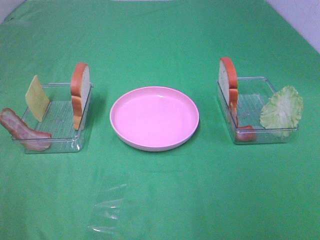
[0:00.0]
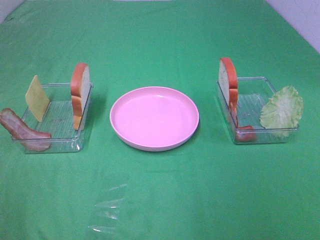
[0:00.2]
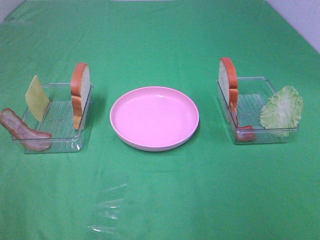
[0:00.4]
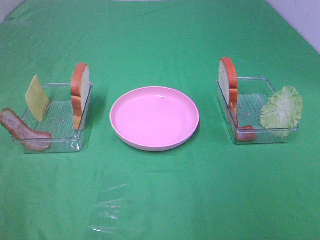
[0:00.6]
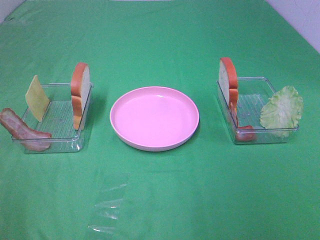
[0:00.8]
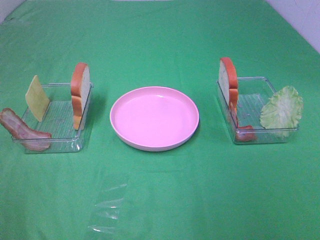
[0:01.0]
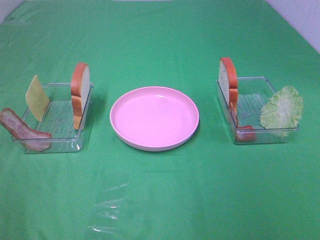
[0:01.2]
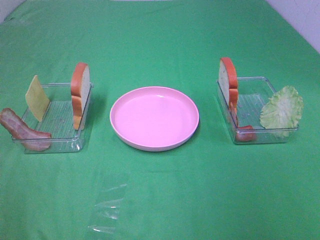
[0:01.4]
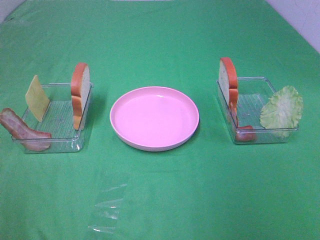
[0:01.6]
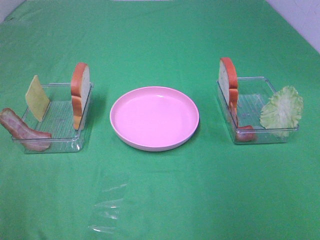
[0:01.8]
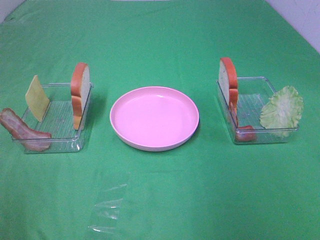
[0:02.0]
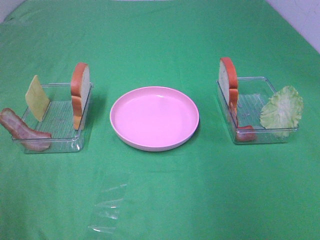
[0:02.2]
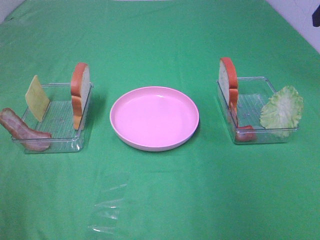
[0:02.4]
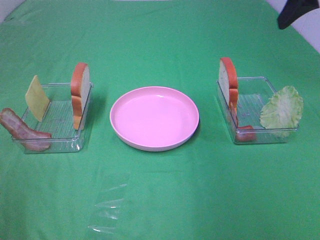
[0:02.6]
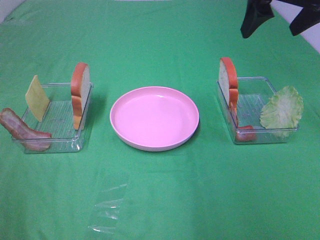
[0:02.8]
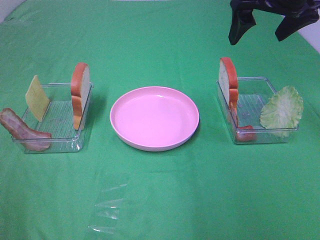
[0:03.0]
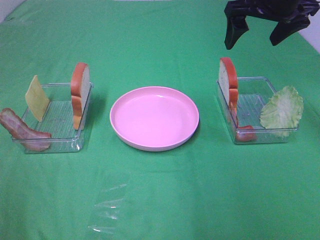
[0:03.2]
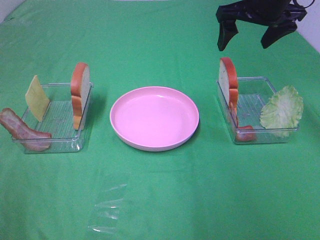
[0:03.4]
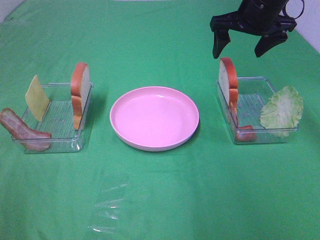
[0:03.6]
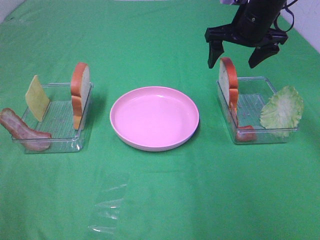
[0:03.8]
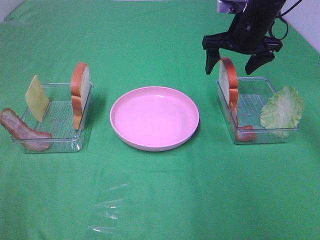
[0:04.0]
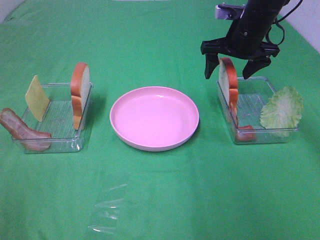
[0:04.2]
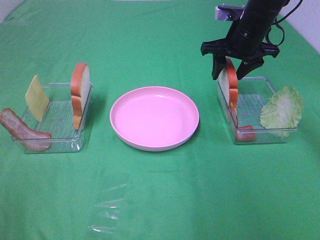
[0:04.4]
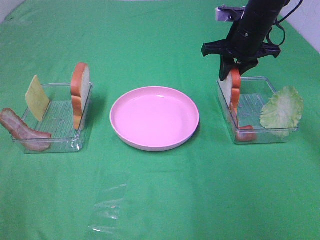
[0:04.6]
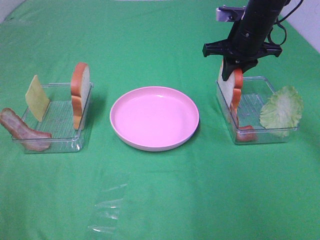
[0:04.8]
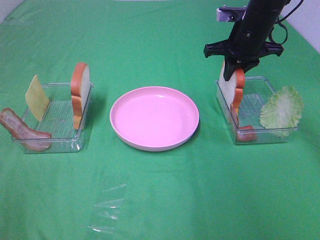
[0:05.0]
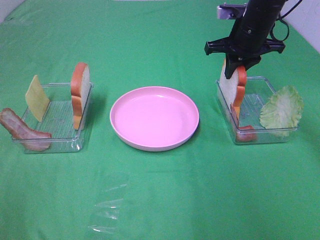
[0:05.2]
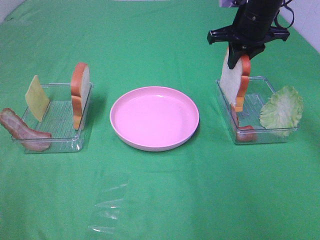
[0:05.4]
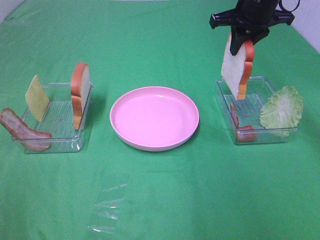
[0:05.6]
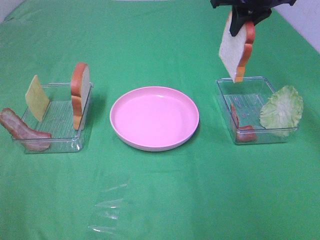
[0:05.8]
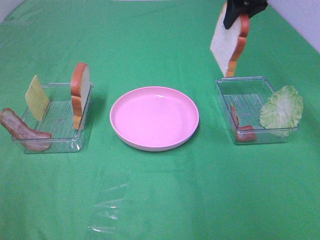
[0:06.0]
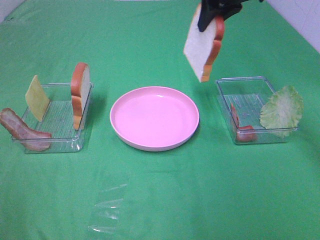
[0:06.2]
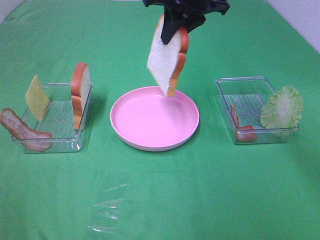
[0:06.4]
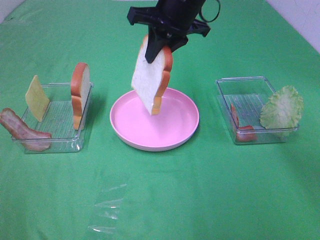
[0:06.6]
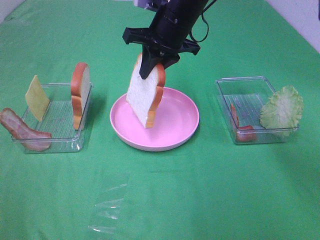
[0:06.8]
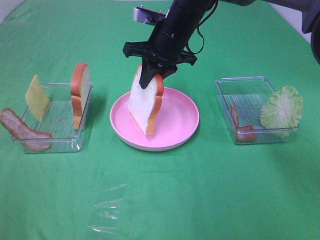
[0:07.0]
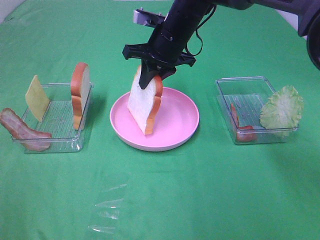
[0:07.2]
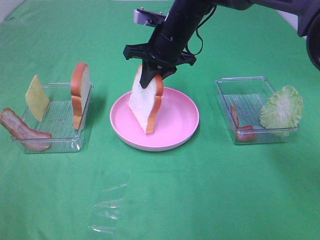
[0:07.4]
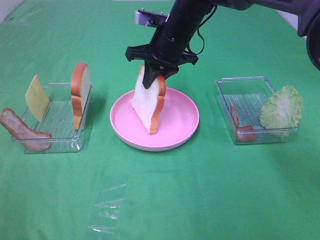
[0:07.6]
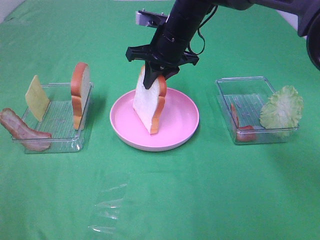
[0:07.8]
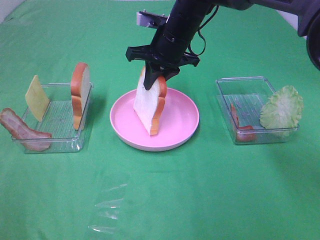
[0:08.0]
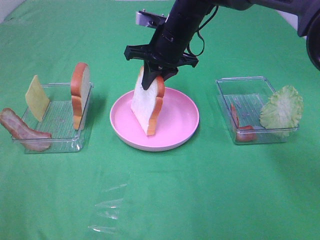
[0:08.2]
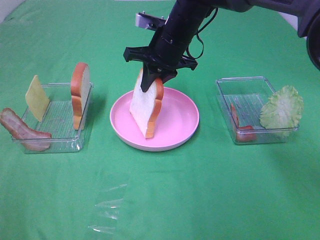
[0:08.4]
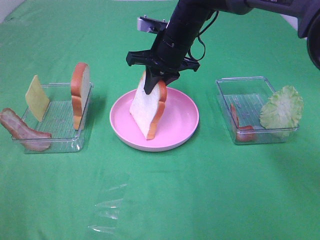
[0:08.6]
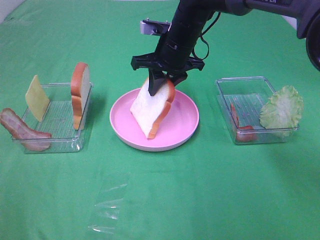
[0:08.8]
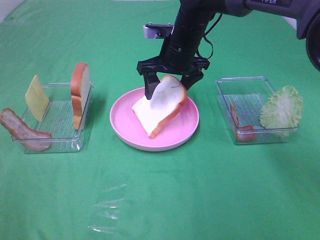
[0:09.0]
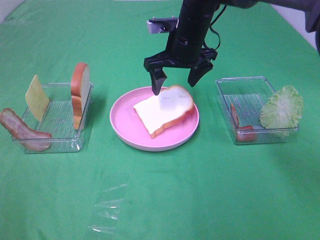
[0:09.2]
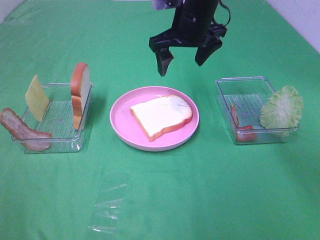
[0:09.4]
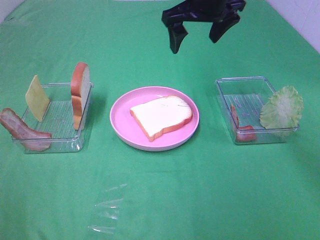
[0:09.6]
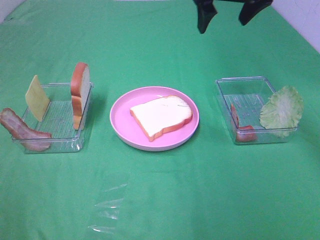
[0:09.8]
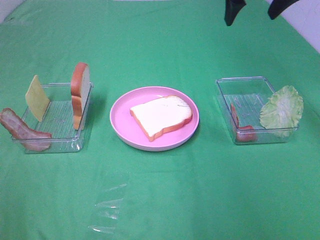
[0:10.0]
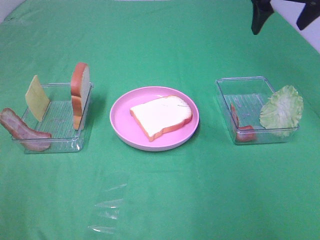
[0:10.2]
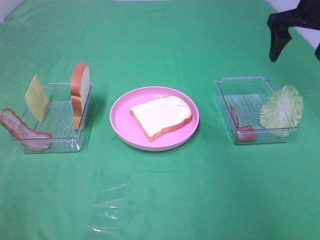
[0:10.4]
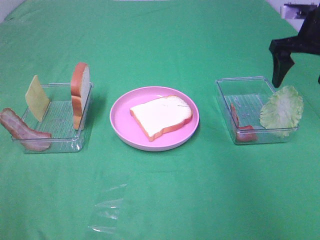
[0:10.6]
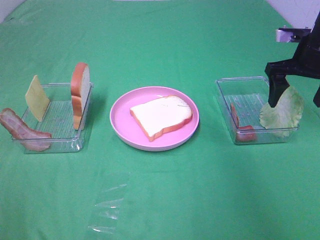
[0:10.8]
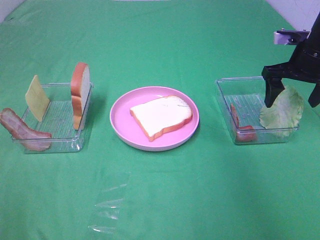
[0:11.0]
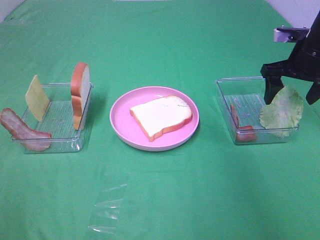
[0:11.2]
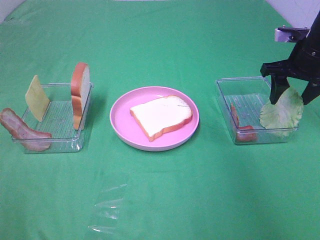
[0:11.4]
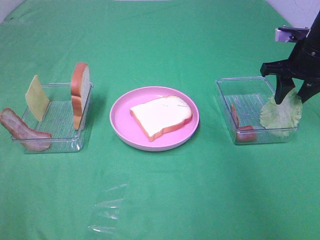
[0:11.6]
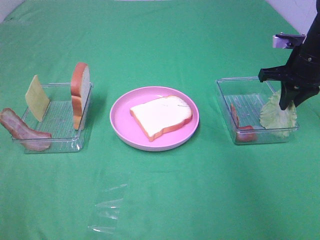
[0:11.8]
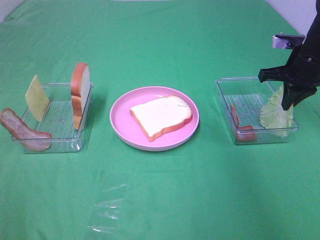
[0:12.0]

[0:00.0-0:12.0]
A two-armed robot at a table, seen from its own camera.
Task of the whole recording: Make sandwiches.
Step, 0.0 to 5.0 s: Right hand:grab the bread slice.
Step, 5.2 to 9.2 s: Right hand:place the bread slice on the plate.
Step, 9.4 to 11.8 s: Right hand:grab the lettuce slice.
1.6 to 3.0 s: The right gripper goes approximately 30 cm forward.
3.0 to 4.4 s: The right gripper travels downward and forward by roughly 15 cm, and closes.
4.4 to 6.0 s: The right gripper travels upward by roughly 10 cm.
6.0 to 7.6 s: The right gripper goes roughly 15 cm to the left and downward.
7.6 to 9.0 s: The right gripper opens.
9.0 to 10.4 s: The right gripper travels to the right and upward by about 25 cm.
10.4 to 12.0 s: The right gripper travels downward by some 10 cm, and closes up.

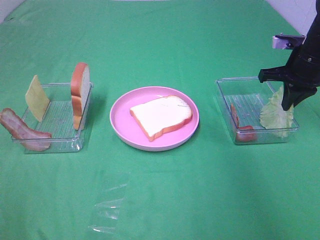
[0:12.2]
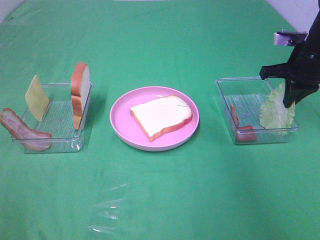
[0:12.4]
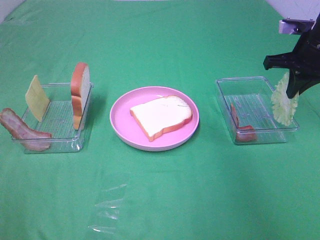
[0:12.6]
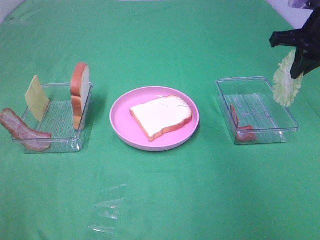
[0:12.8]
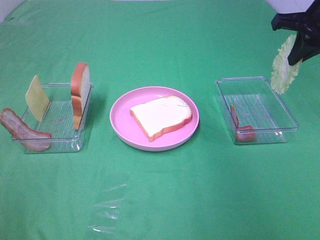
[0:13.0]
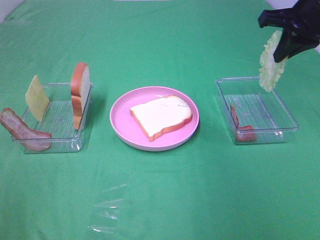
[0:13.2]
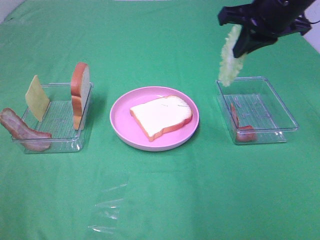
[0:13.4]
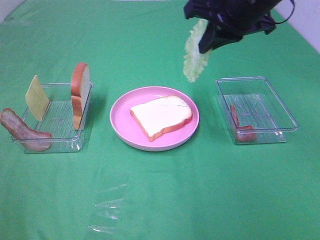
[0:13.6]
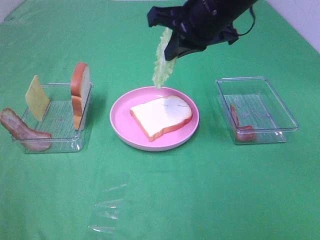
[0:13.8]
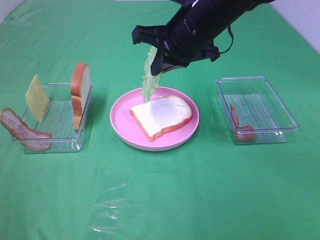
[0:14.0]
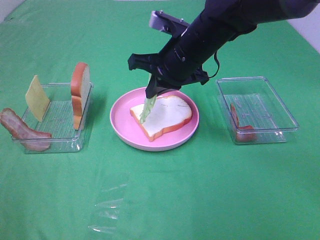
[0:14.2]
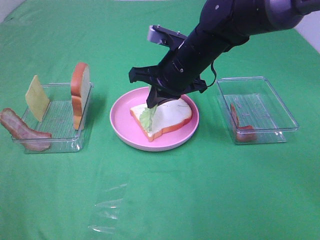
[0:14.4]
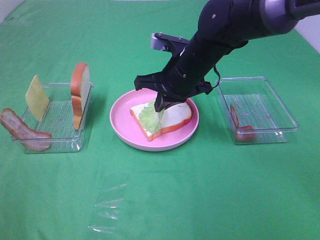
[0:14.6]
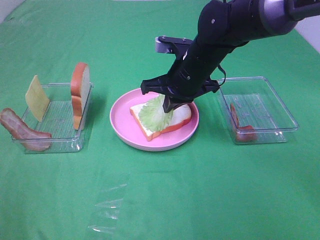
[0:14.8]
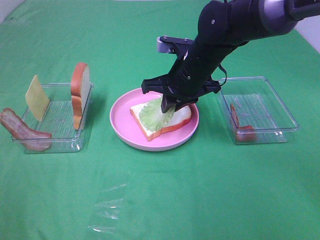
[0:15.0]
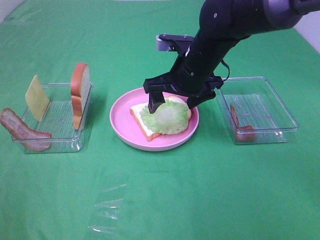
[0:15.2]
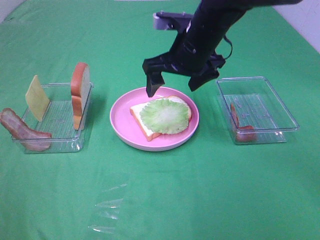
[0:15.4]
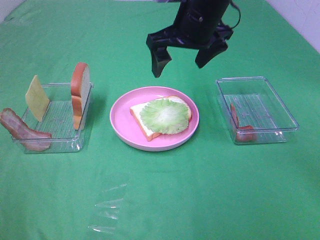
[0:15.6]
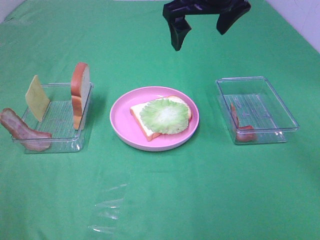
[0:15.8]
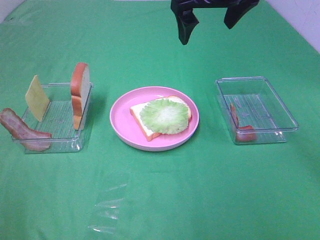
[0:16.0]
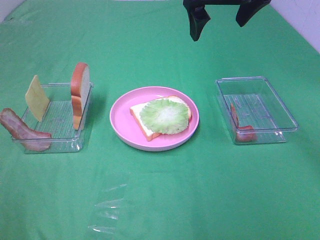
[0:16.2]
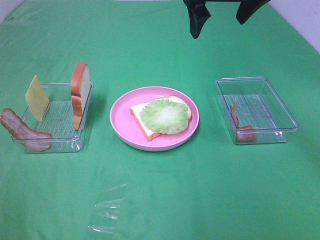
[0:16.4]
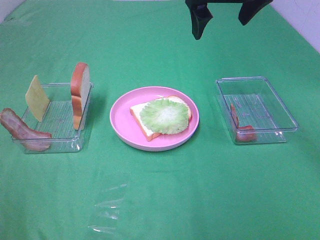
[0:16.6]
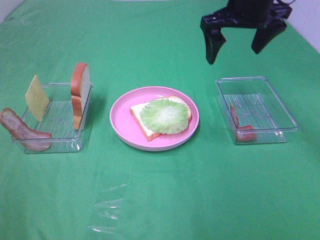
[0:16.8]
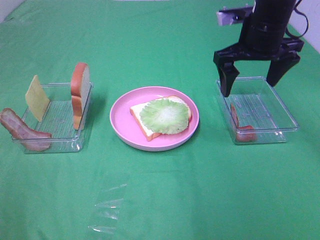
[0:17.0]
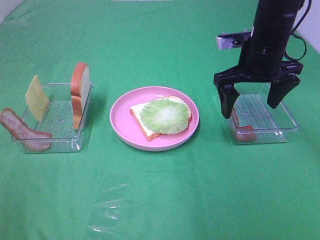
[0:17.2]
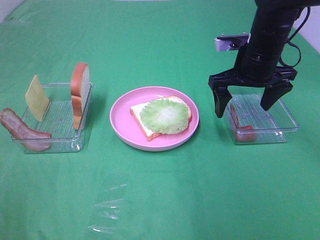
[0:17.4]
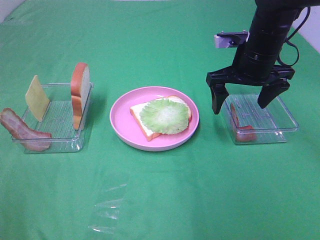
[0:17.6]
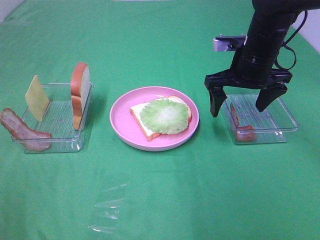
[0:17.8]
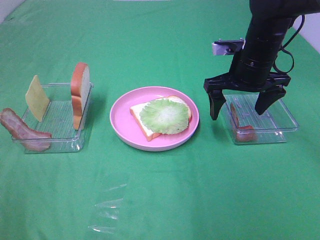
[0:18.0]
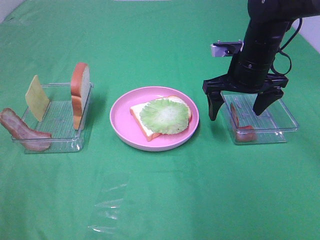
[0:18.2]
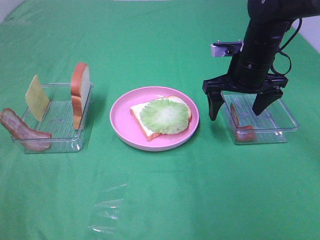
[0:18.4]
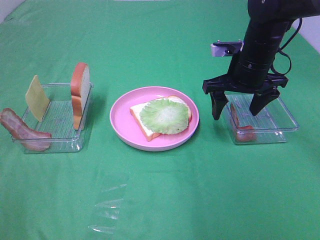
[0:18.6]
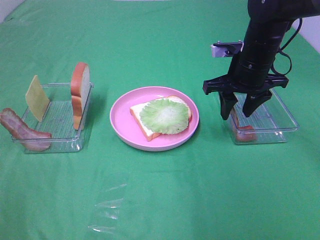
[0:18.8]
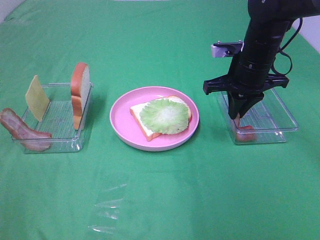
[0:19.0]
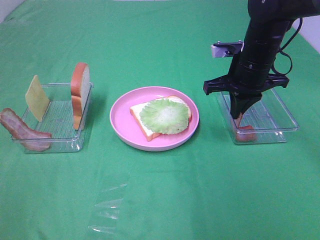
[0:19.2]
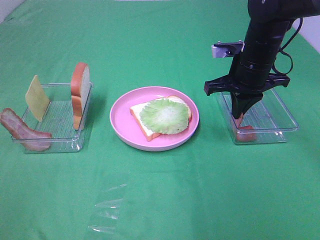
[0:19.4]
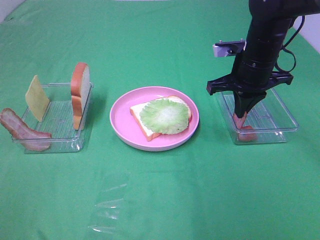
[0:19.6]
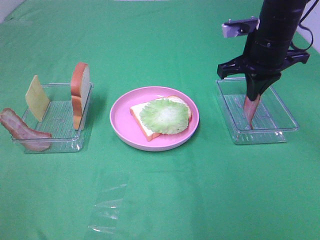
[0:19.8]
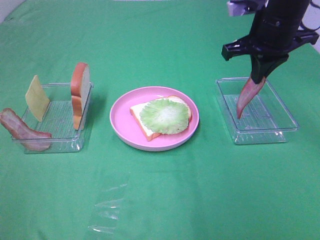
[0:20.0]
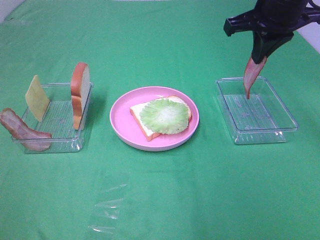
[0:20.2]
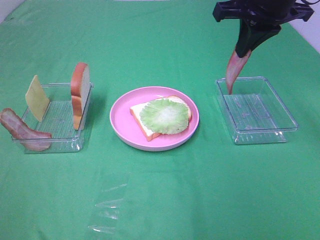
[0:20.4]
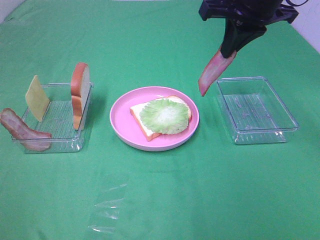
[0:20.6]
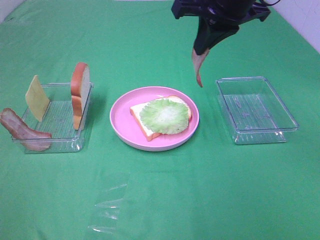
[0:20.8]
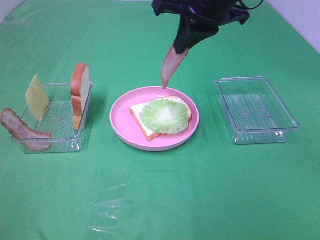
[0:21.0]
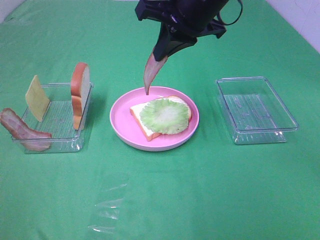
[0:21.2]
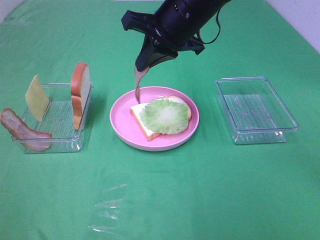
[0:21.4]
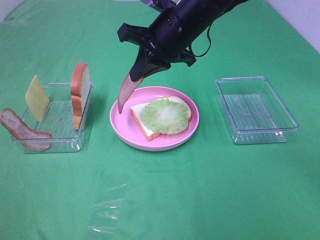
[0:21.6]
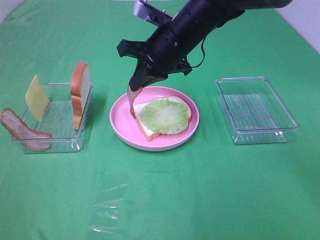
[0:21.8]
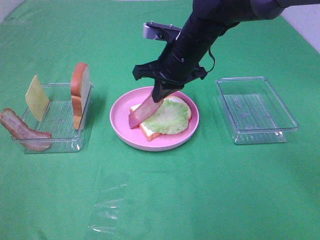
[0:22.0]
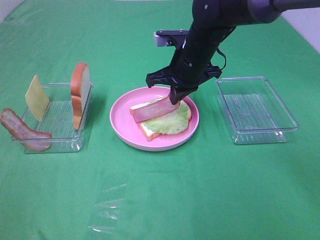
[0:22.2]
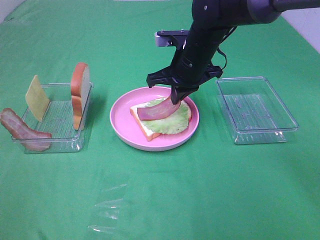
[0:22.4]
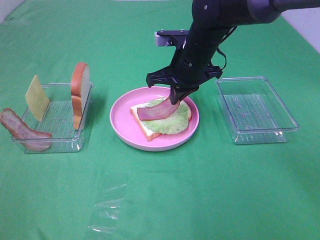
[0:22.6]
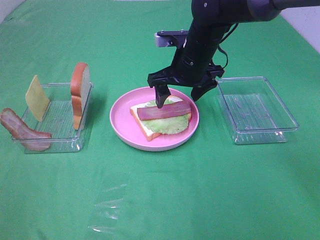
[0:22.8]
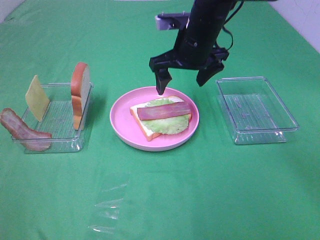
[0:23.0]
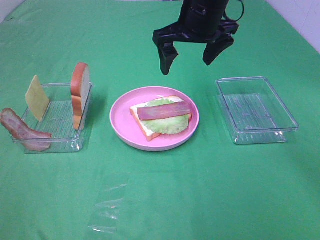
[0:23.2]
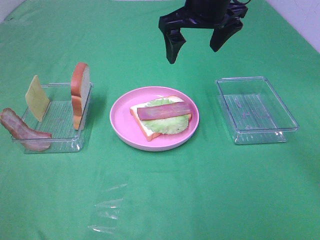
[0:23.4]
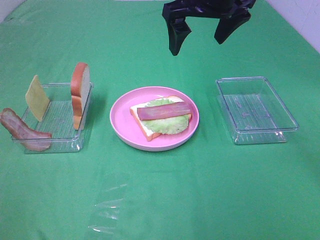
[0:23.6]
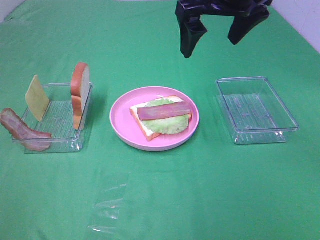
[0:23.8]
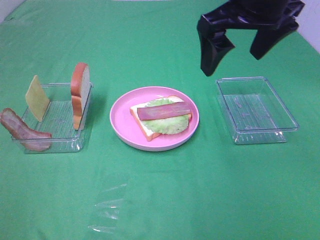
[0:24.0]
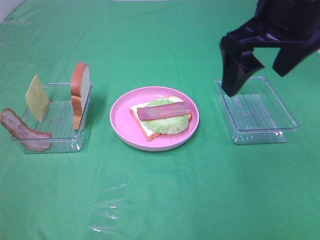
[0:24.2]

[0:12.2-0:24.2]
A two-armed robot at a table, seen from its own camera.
Task of the whole recording: Make sandwiches.
Step, 12.2 to 15.4 s: Right hand:place the lettuce slice on the bread slice.
Step, 15.6 to 19.2 s: Right hand:grab the bacon.
Step, 19.4 to 22.8 s: Right hand:place bacon on lettuce slice.
12.2 to 13.8 s: The right gripper shifts roughly 20 cm to the left and upward.
13.8 to 15.2 s: The right gripper moves downward, about 10 cm, and opens up.
15.2 to 16.6 s: The right gripper heads upward, covering some 15 cm.
16.6 to 18.2 s: The right gripper shifts approximately 15 cm downward.
18.2 to 19.8 s: The right gripper moves upward, about 5 cm, and closes its fingers.
19.8 to 21.2 s: The right gripper is displaced to the left and upward by some 15 cm.
21.2 to 22.6 s: The right gripper travels downward by about 10 cm.
22.6 to 24.2 s: The right gripper goes roughly 25 cm upward, backward and to the right, and opens up.
